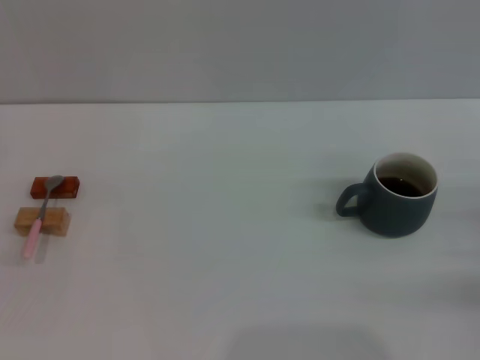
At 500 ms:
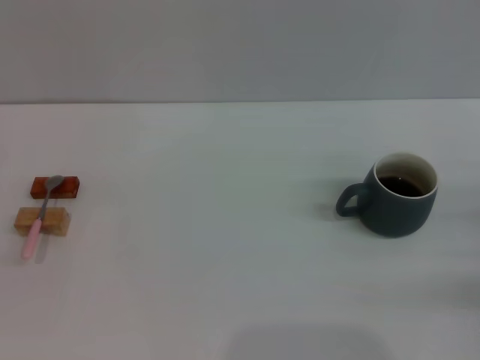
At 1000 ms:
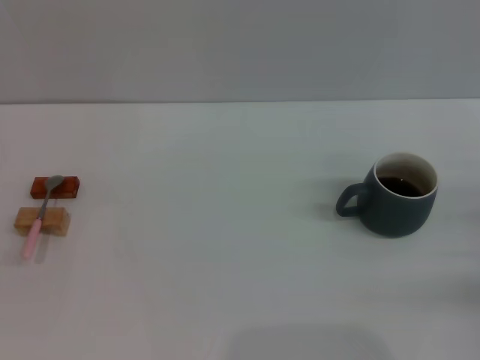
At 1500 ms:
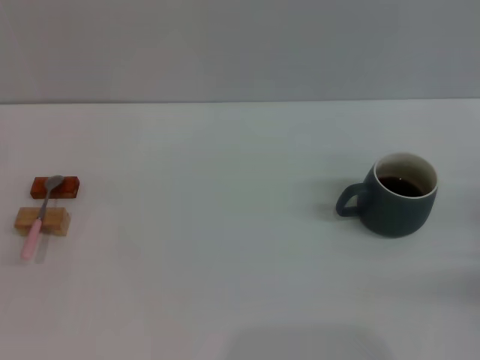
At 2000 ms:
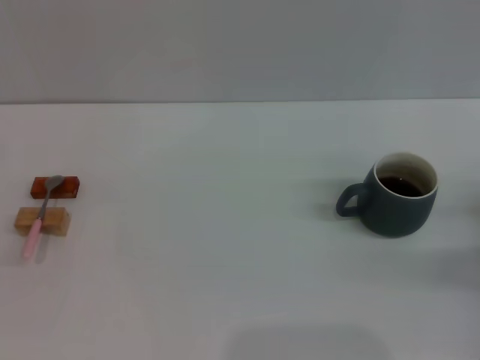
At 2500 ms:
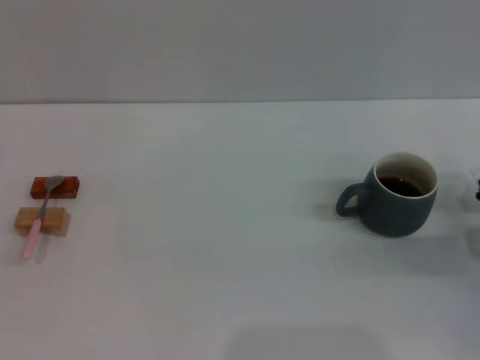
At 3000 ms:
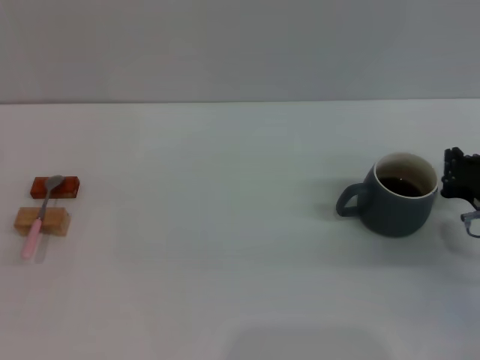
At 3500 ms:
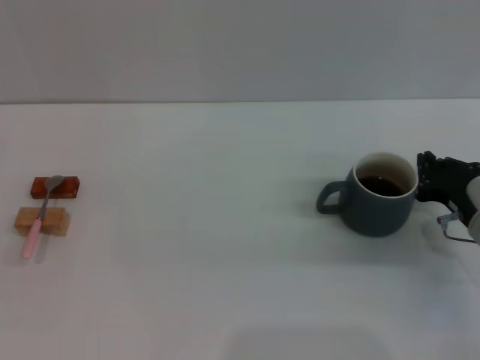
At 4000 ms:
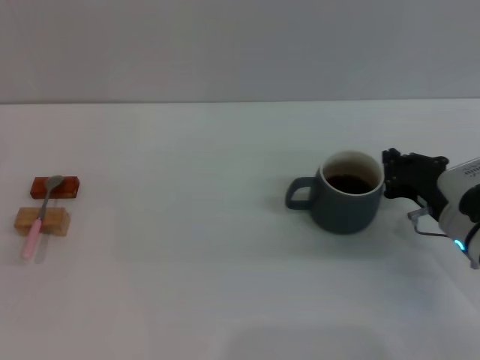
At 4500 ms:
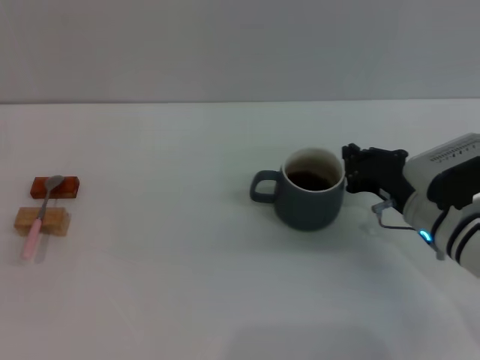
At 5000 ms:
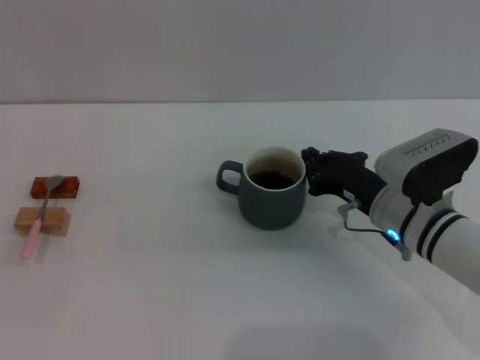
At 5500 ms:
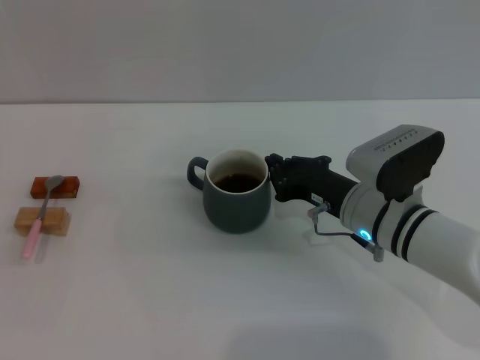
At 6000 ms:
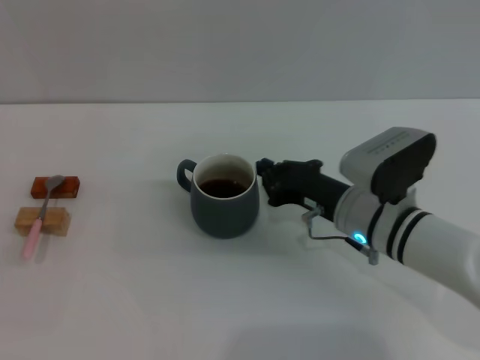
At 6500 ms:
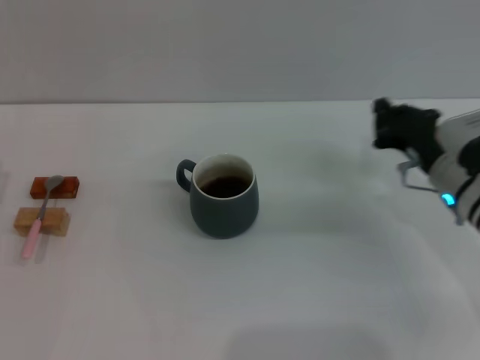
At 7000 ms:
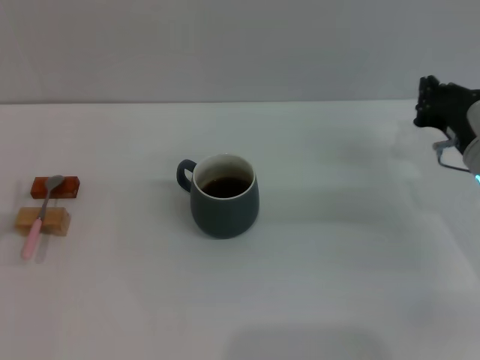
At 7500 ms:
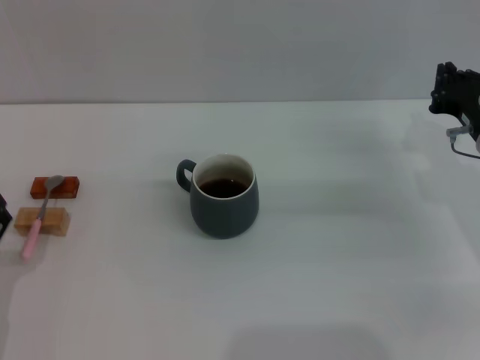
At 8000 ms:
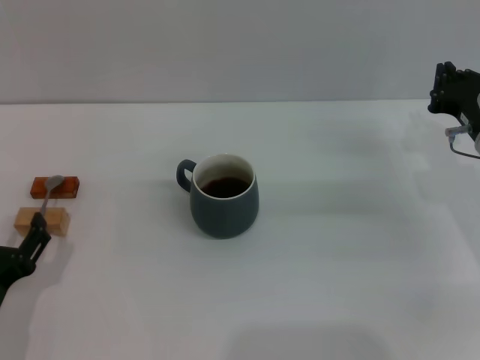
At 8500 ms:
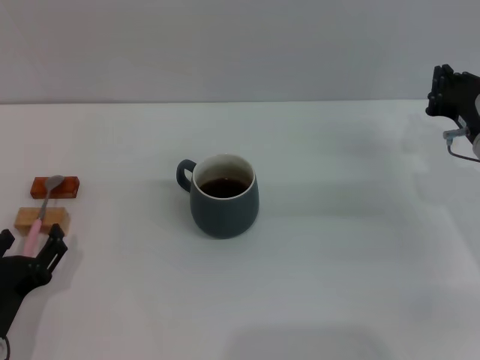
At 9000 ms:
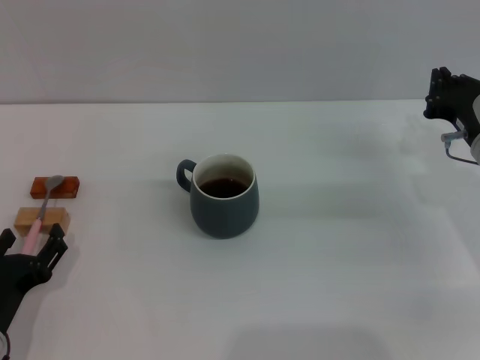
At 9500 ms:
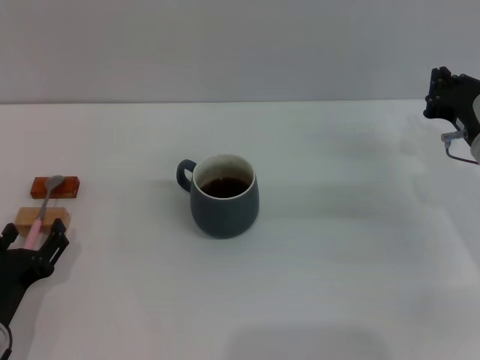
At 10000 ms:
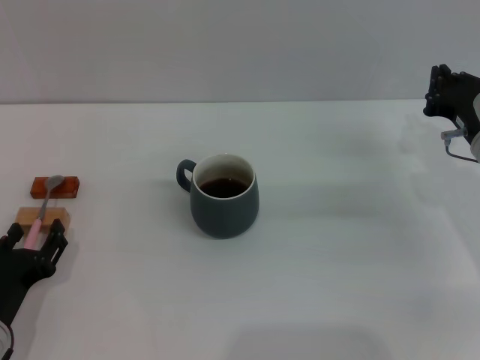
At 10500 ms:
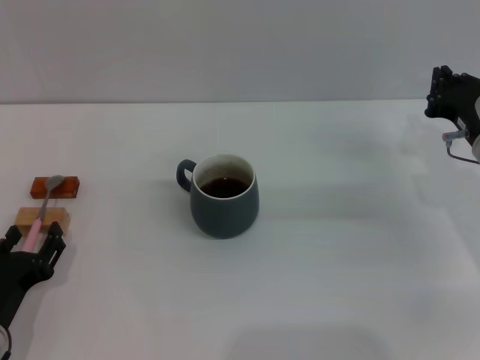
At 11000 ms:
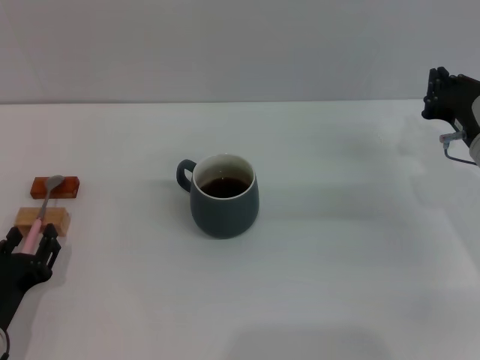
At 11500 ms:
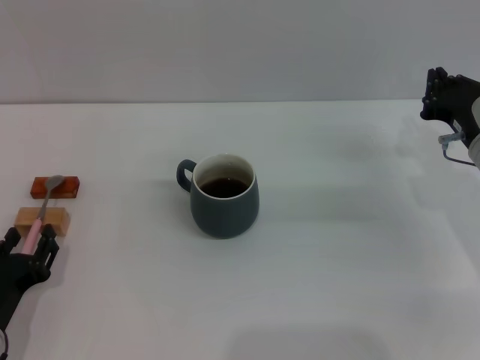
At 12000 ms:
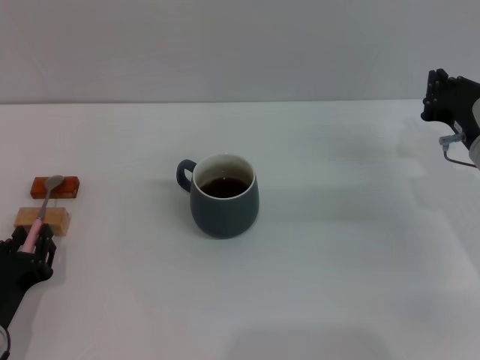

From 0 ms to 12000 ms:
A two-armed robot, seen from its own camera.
Task of the whole recording: Move the grey cup to the center, lift the pink spoon, stir it three times in the cup, and put the spoon into the cup.
Step, from 0 ms to 7000 ms: Move the cup with coffee to the center of view with the right gripper.
From 2000 ms to 4000 ms: The right gripper travels to the left by about 10 cm.
From 4000 ms to 6000 ms: The right gripper travels to the left by some 10 cm.
From 6000 ms to 8000 ms: The right gripper travels to the right by about 15 cm. The left gripper heads to the right and backward, covering approximately 15 cm.
From 8000 ms to 10000 ms: There are only small adjustments of the grippers.
From 10000 ms to 12000 ms: The two grippers keep their place.

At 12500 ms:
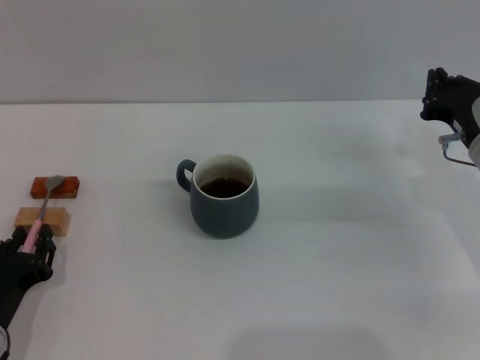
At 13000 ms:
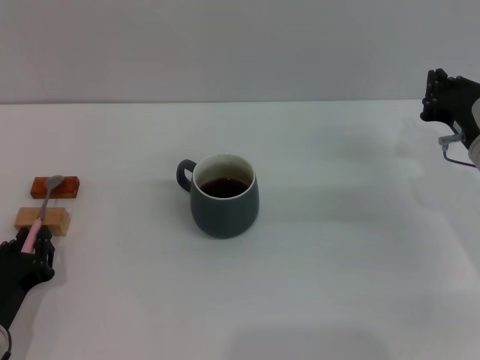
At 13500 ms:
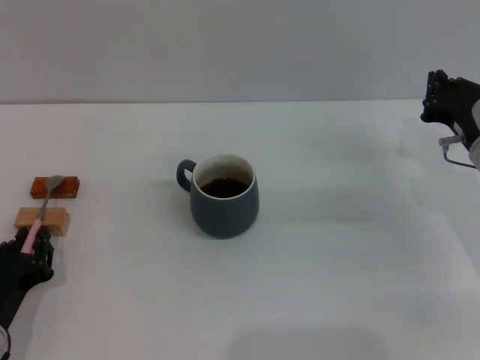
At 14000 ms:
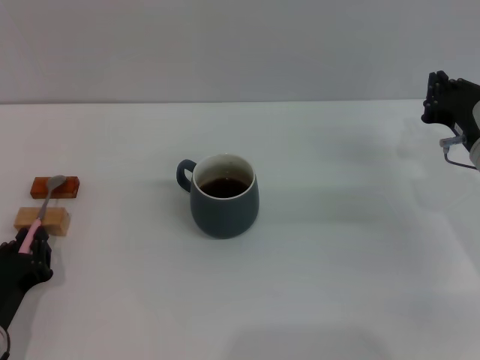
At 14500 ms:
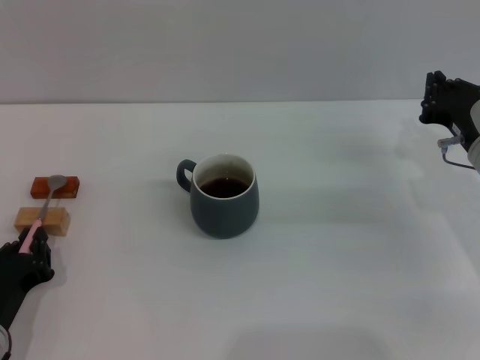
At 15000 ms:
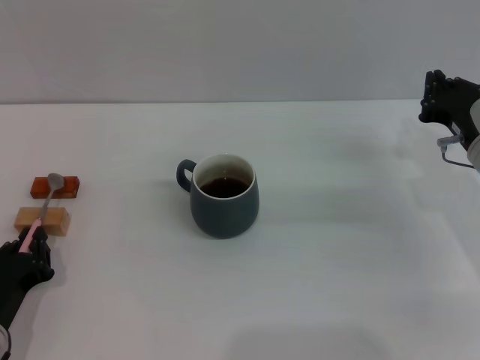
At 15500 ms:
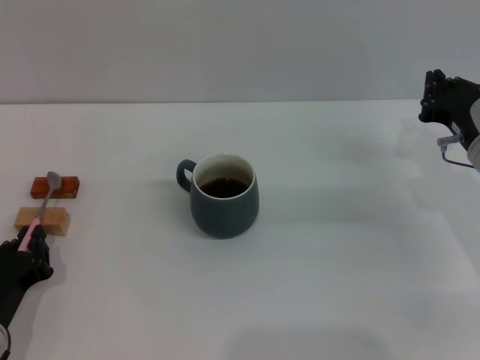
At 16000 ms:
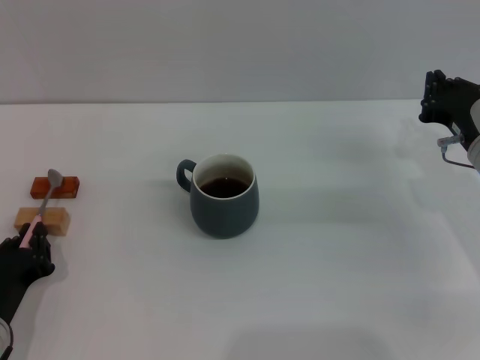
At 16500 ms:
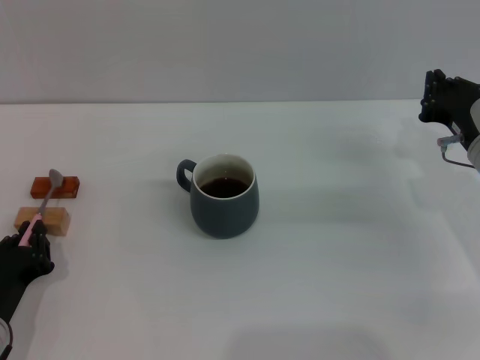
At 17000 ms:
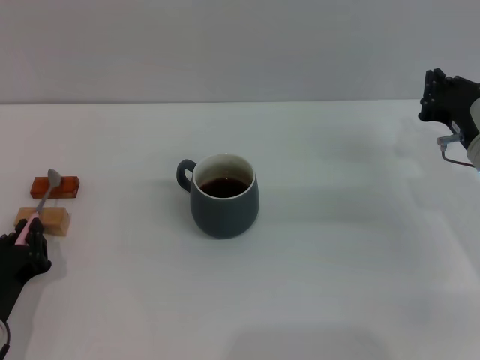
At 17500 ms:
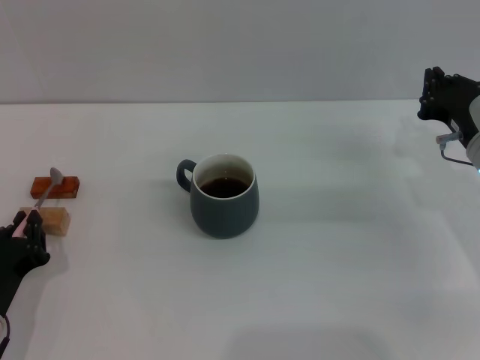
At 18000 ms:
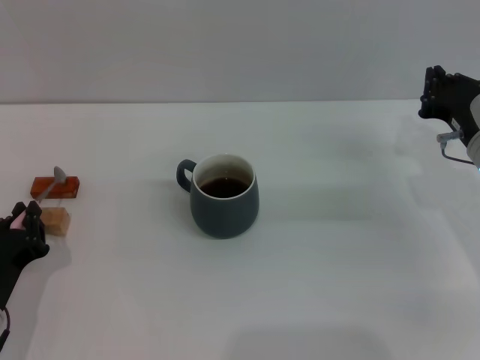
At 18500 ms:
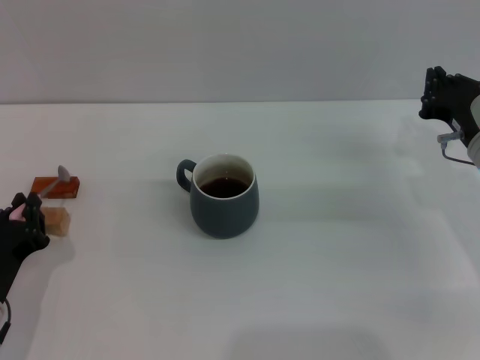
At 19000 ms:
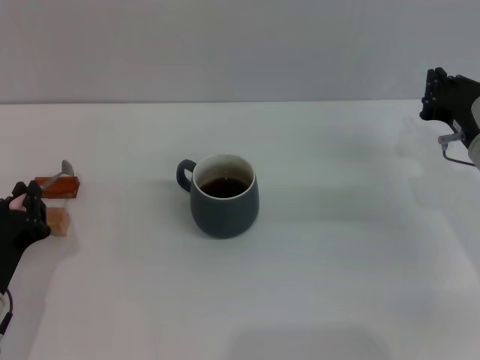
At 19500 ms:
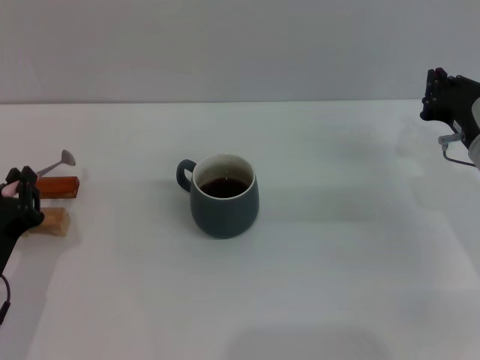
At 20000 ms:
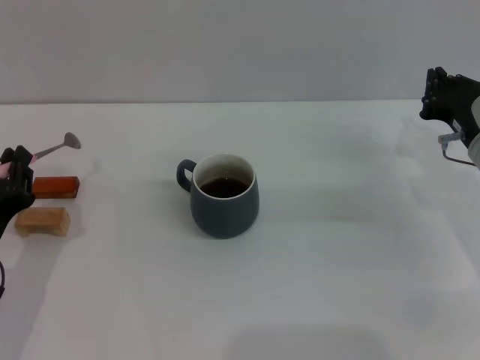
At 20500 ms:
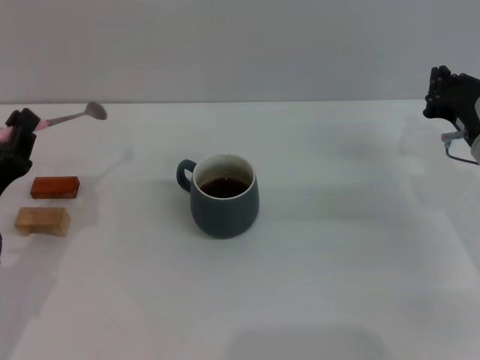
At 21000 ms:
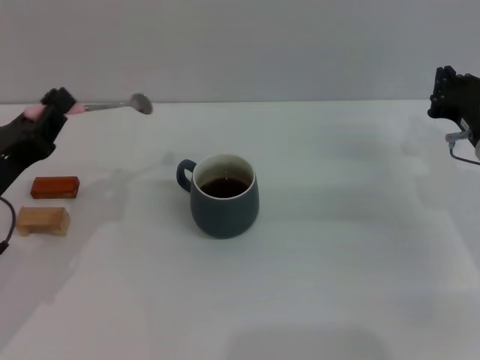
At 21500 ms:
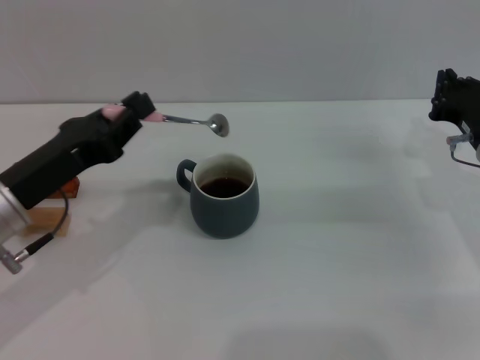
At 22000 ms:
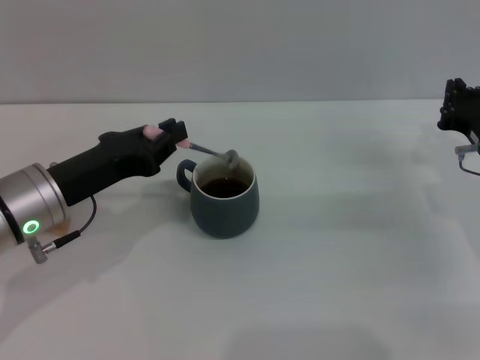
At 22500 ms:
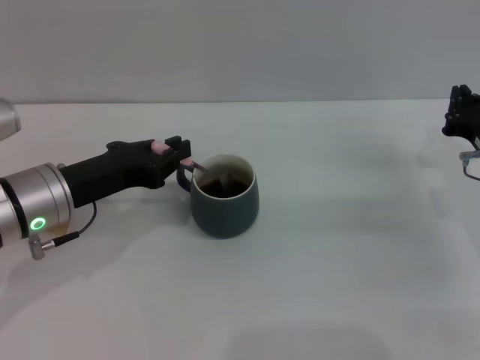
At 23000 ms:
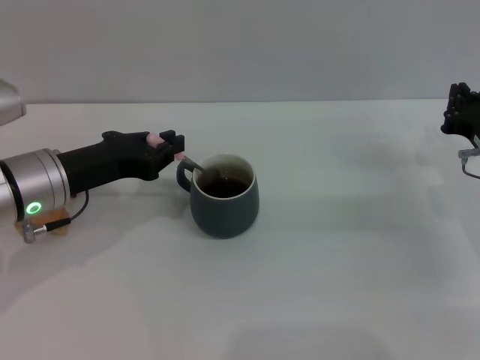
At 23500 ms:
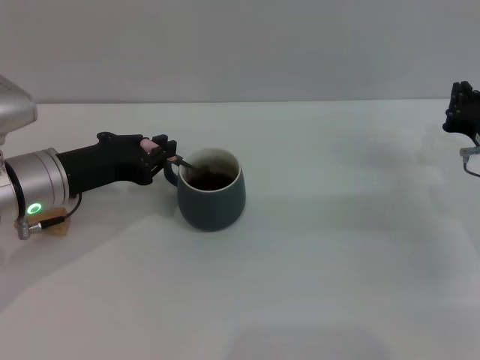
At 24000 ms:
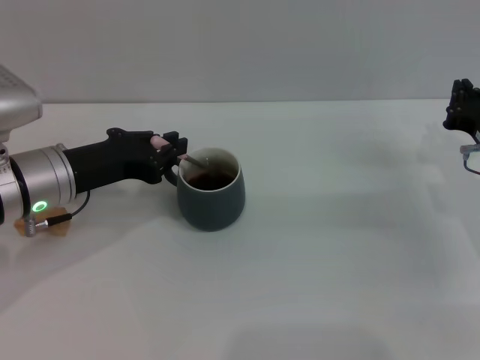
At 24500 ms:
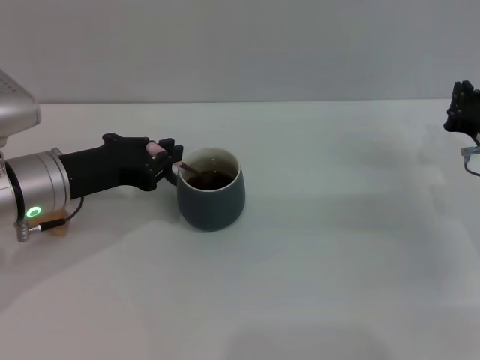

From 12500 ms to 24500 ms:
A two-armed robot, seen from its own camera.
Task of the whole recording: Move the grey cup to the center, lift the pink spoon, stir it three times in the cup, and put the spoon into the cup.
Step, from 12500 ms to 20000 ms: Pick up the spoon with the left gripper.
From 12500 ms to 16500 ms: Both grippers stay about where they are.
From 16500 ms to 18500 ms: The grippers move only a little.
From 18500 ms to 20500 ms: The left gripper travels upward by approximately 5 cm.
From 20500 ms to 22500 ms: The left gripper is displaced forward and to the right by approximately 10 cm.
From 22500 ms to 24500 ms: There are only small adjustments of the grippers.

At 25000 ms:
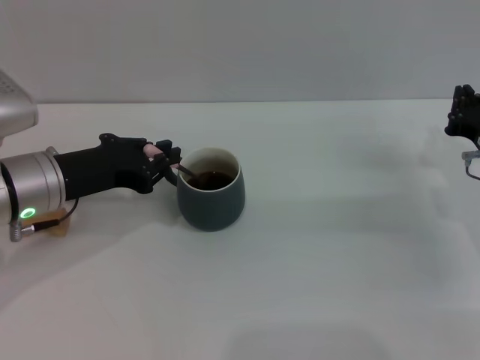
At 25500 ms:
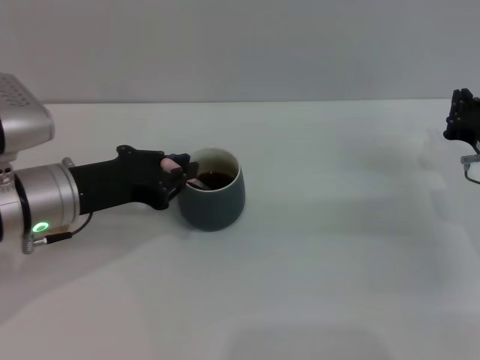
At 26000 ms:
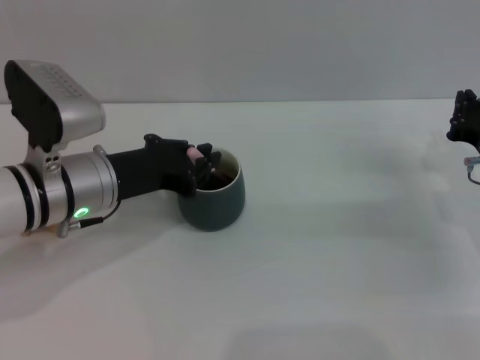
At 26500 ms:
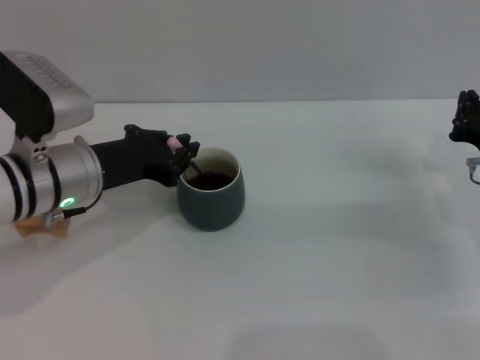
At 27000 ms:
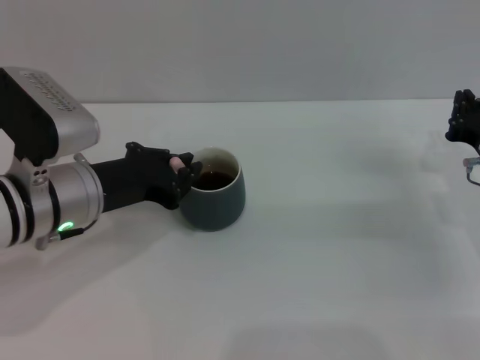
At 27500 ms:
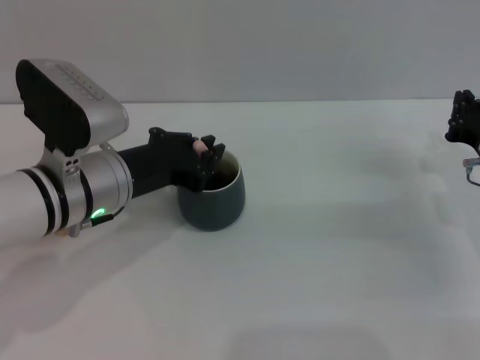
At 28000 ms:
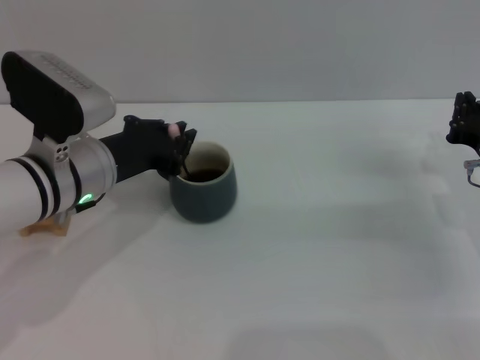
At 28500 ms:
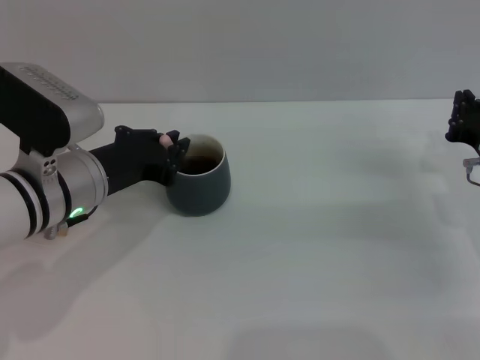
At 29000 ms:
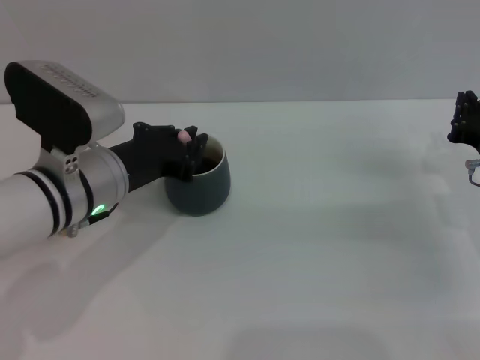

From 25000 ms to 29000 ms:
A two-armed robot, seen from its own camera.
Task of the whole recording: Move the grey cup to the center, lift the pink spoon, stir it three times in the cup, and put the spoon into the cup.
From 25000 ms to 27000 ms: There are only small adjustments of the grippers.
From 27000 ms to 29000 ms: The grippers make only small movements.
